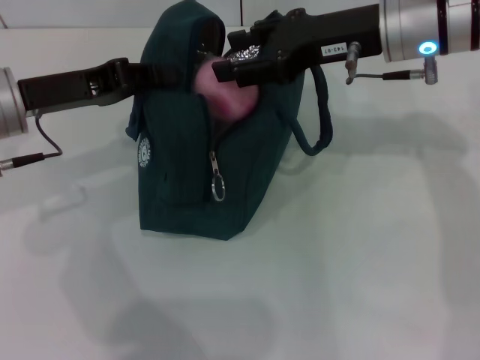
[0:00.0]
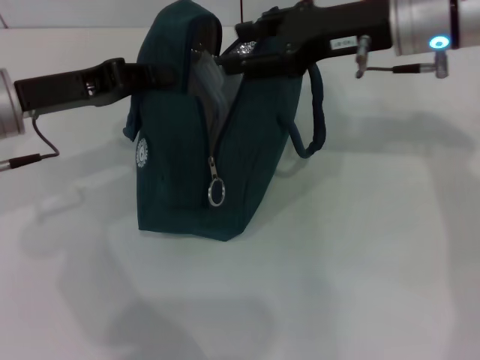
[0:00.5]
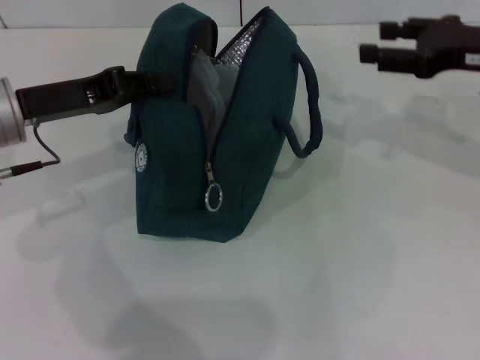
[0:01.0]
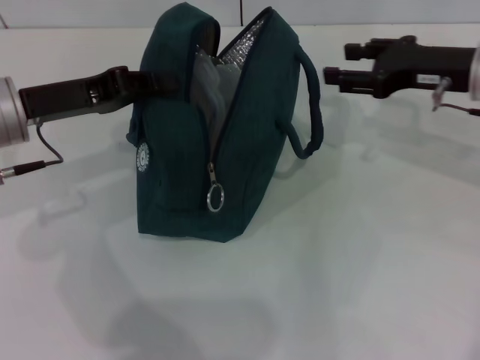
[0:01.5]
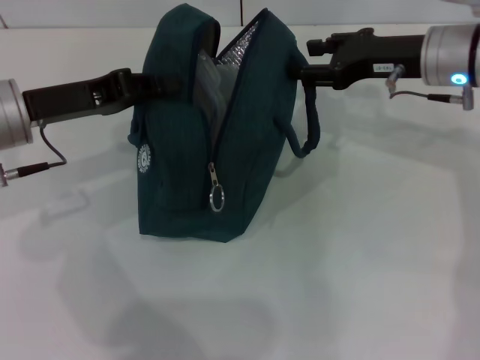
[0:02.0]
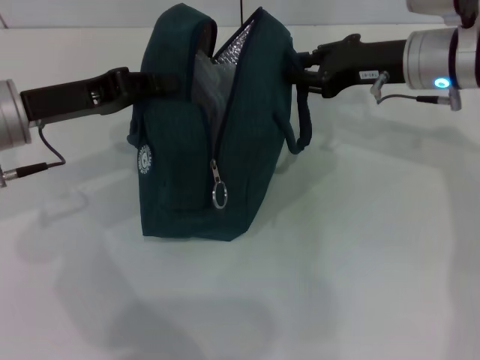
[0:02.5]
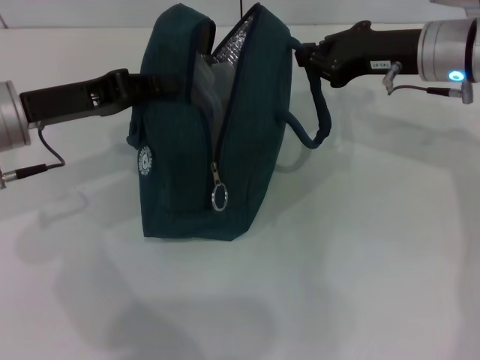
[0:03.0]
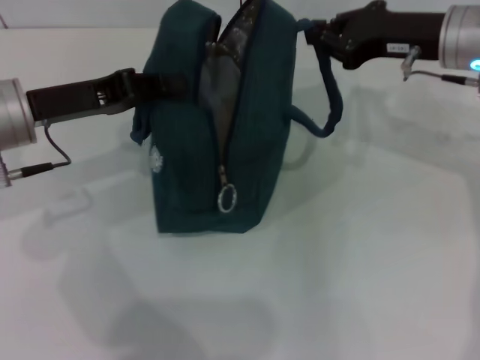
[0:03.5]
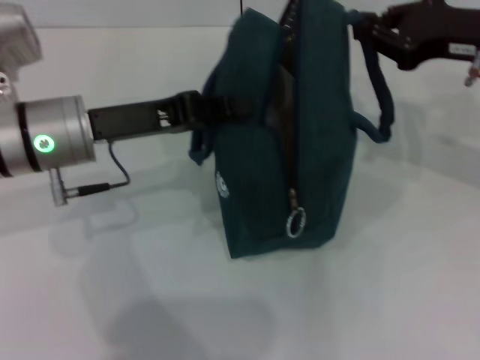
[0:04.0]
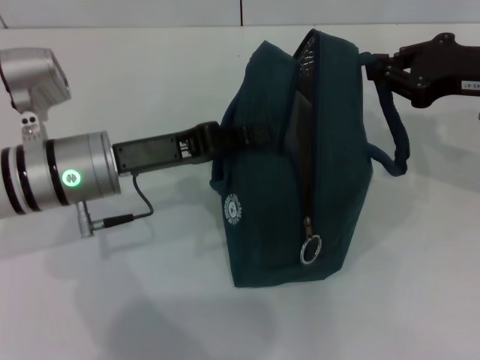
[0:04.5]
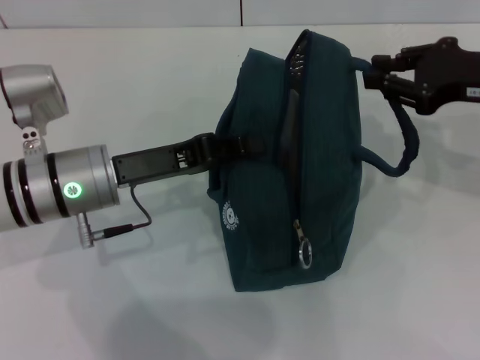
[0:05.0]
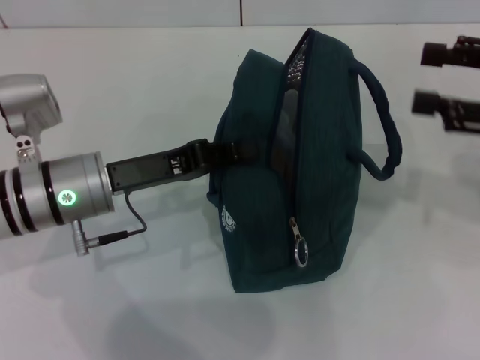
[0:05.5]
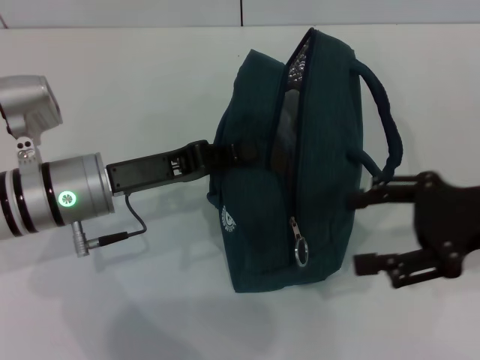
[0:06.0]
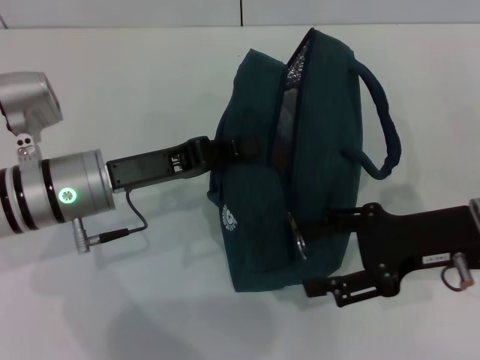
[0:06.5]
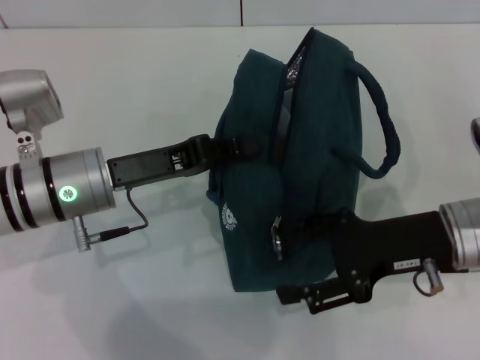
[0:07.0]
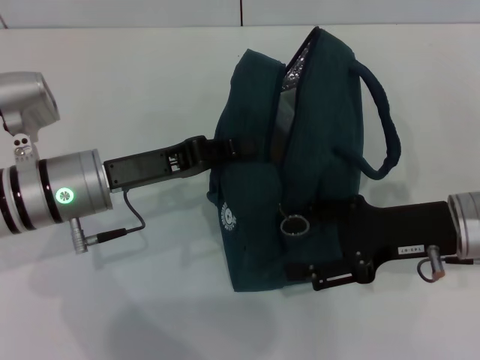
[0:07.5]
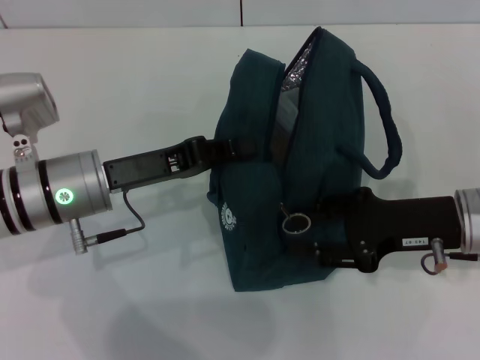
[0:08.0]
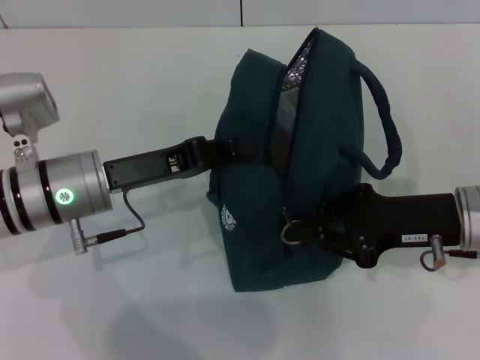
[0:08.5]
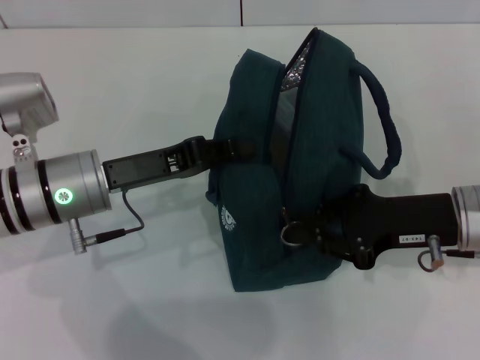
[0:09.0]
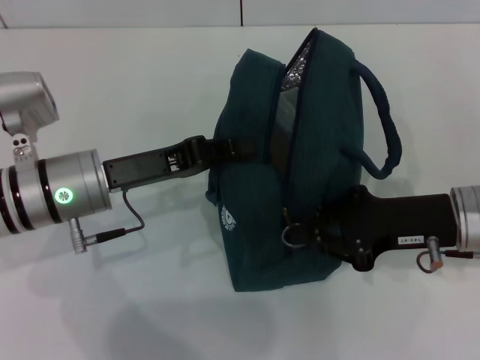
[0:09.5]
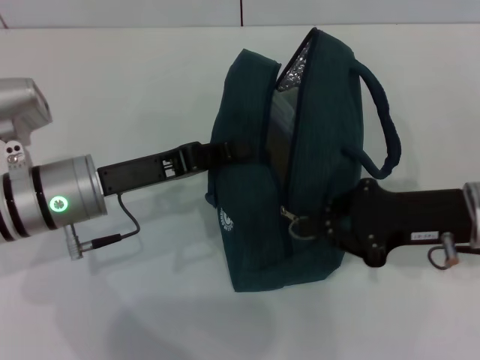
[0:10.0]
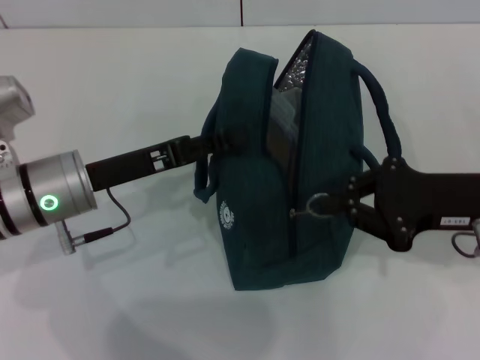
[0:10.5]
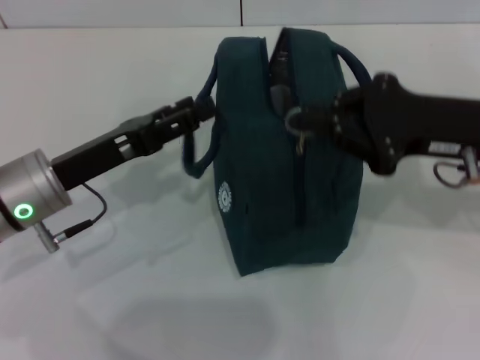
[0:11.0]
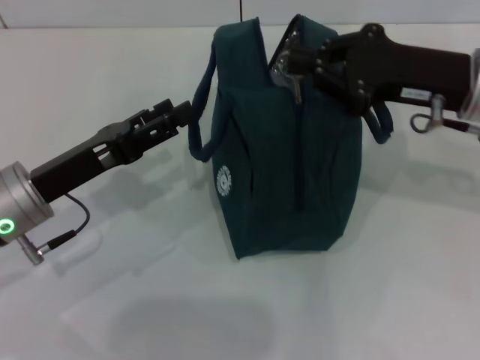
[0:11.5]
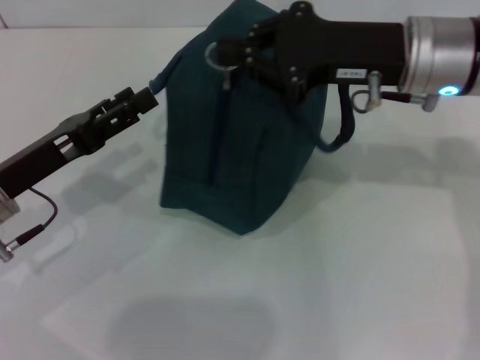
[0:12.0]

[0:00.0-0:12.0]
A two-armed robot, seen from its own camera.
Step, 0:00.5 to 0:05.0: Hold the lunch bag with your right hand.
0:00.0 to 0:02.0: The right gripper moves downward and to the right, about 10 cm.
0:02.0 to 0:04.0: Both grippers move to the right, some 5 cm. The right gripper closes its fingers.
0:04.0 to 0:06.0: The left gripper ends up about 5 cm from where it was; the right gripper goes approximately 10 cm backward and downward, and opens up.
0:06.0 to 0:08.0: The right gripper goes some 5 cm downward.
0:08.0 to 0:10.0: The right gripper closes up.
0:10.0 to 0:12.0: The right gripper moves upward, forward and to the left, about 15 cm, while the left gripper shifts about 5 cm to the left, and opens its fingers.

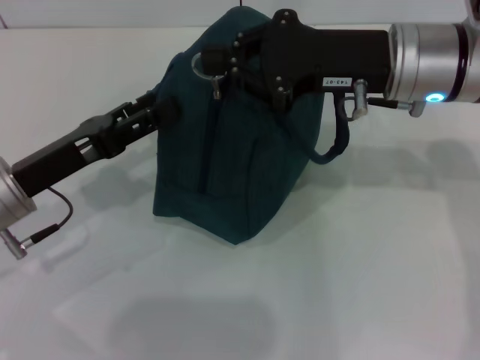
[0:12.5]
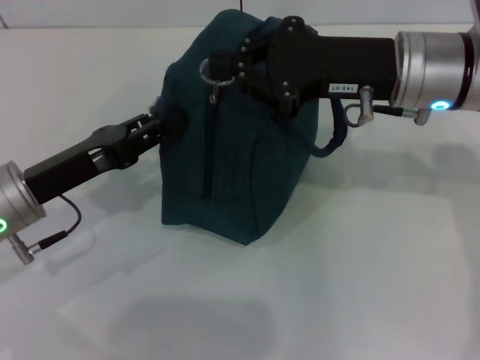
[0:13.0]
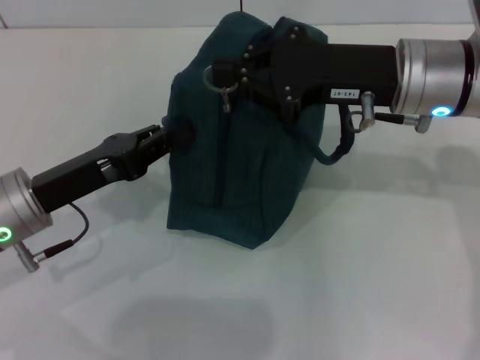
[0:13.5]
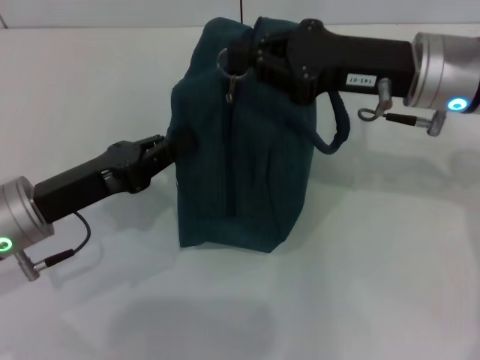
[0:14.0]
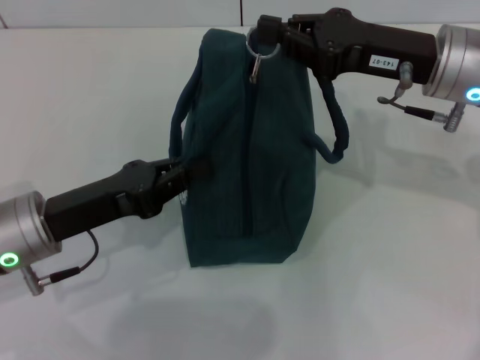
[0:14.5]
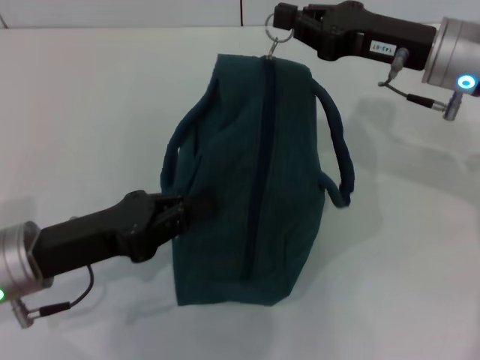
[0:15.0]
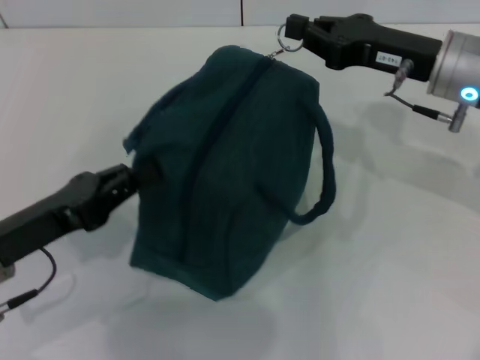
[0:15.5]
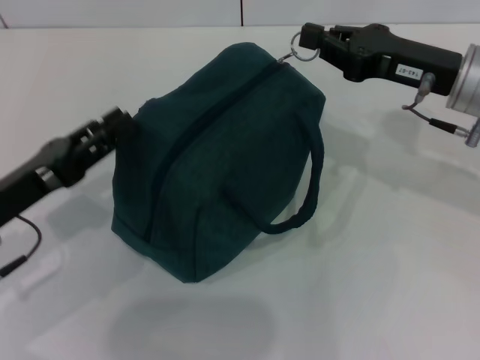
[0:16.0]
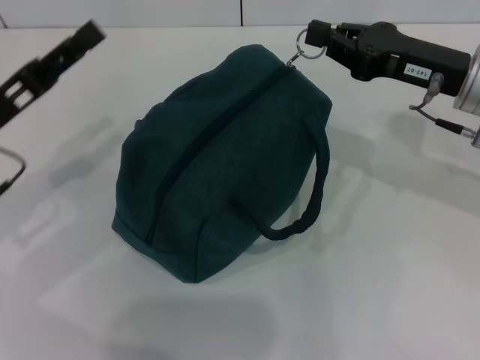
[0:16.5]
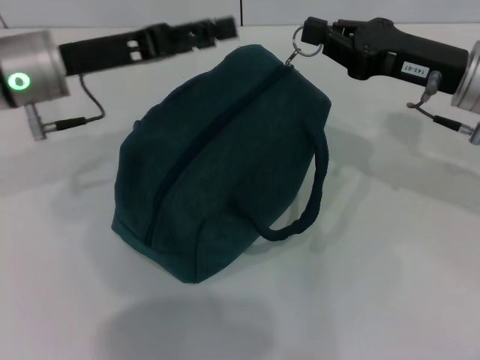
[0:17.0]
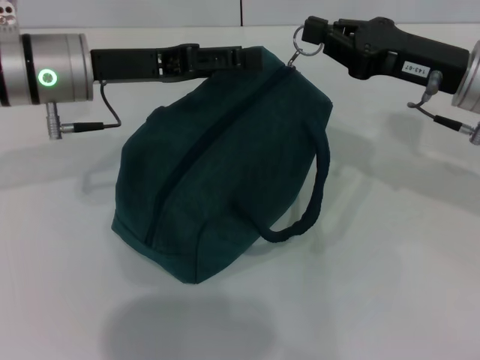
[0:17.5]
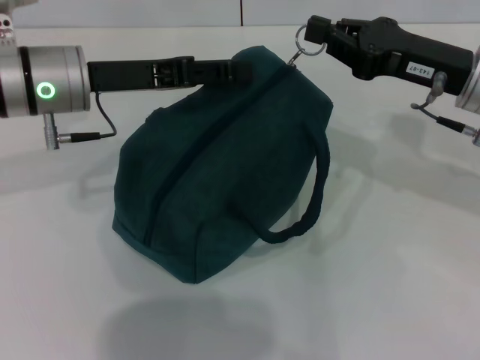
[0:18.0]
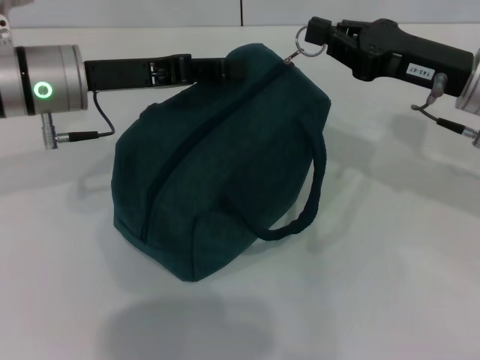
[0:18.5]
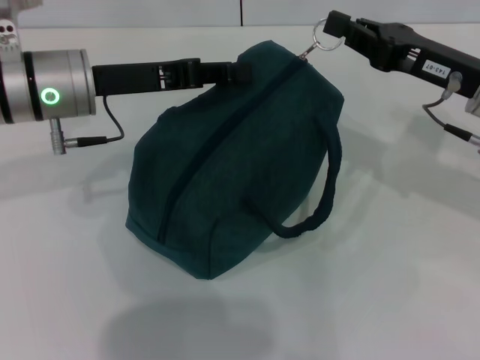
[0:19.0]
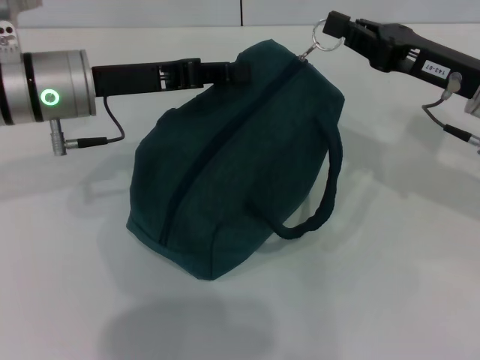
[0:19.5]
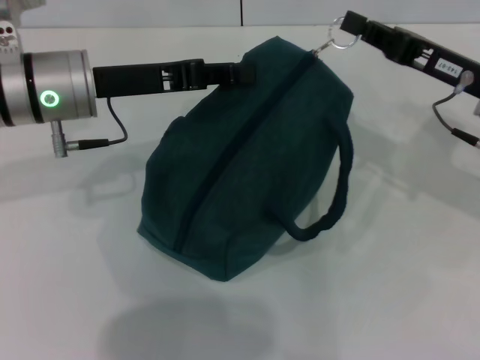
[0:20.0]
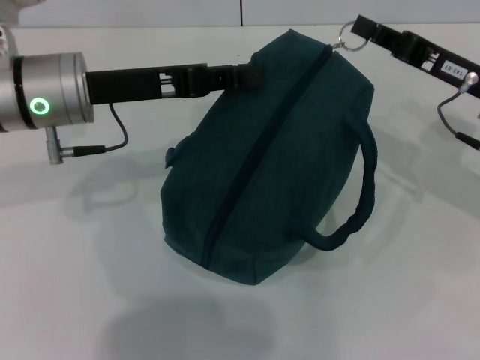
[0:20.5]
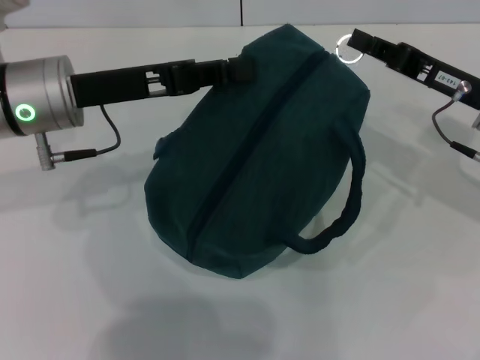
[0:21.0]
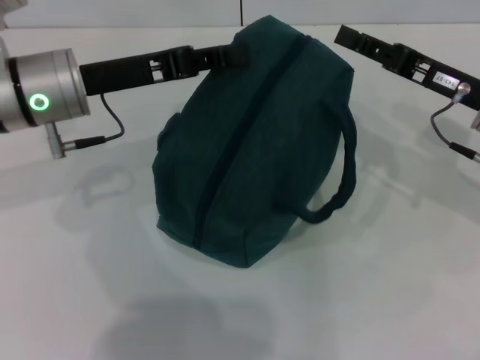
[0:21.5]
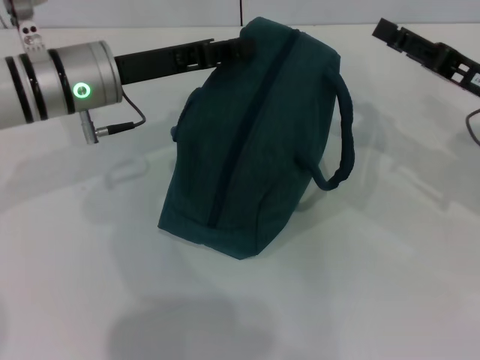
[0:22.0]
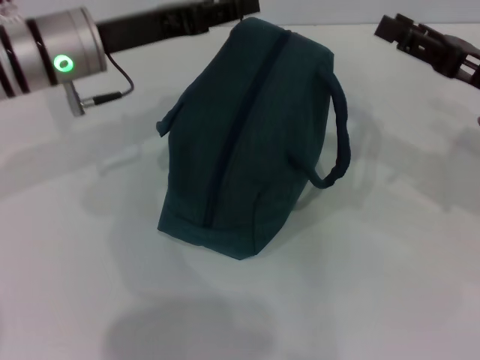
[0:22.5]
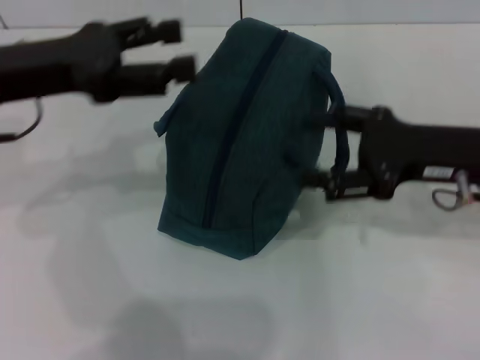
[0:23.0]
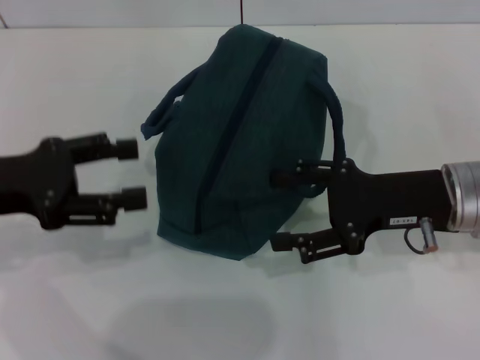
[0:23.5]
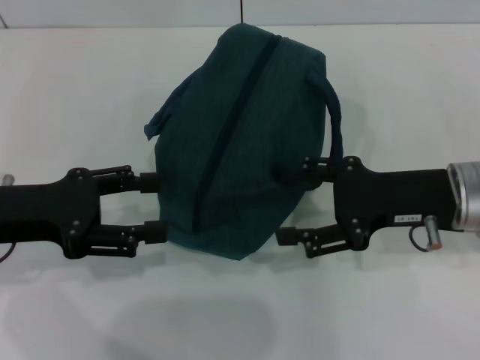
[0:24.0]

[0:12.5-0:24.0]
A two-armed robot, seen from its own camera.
Step, 0:12.5 to 0:21.0: Zip up the lunch bag with your right hand.
Step, 0:21.5 to 0:22.0: Hold the lunch bag with your left hand.
0:12.5 to 0:14.5: The left gripper closes.
0:14.5 to 0:16.5: The left gripper goes about 5 cm to the left, and opens.
0:16.5 to 0:18.5: The left gripper travels forward and to the right by some 10 cm.
0:18.5 to 0:20.0: The left gripper closes.
0:20.0 to 0:22.0: The right gripper opens.
0:22.0 to 0:24.0: The left gripper shifts about 15 cm backward and to the left, and opens up. Meanwhile the right gripper heads to the left, covering roughly 5 cm.
